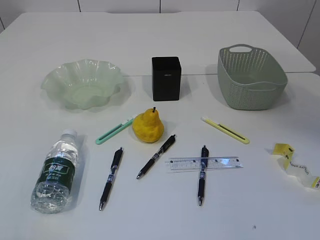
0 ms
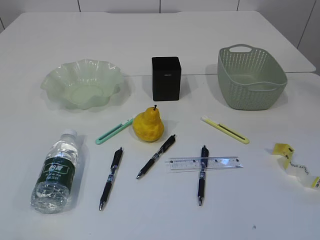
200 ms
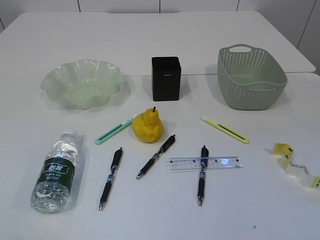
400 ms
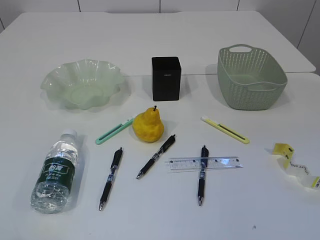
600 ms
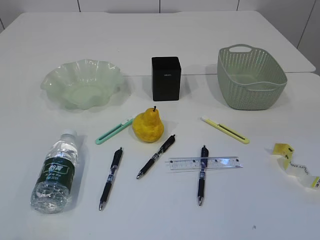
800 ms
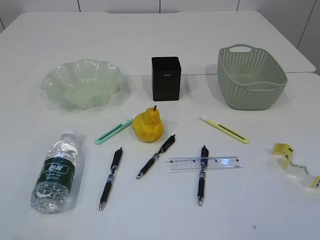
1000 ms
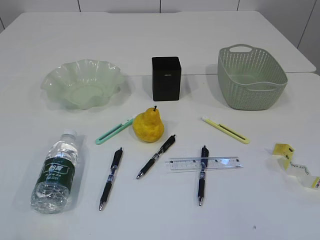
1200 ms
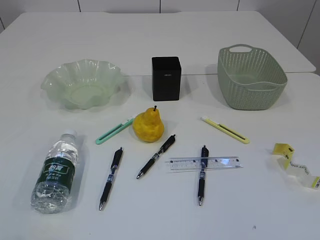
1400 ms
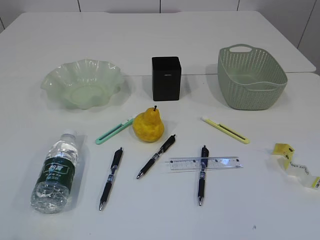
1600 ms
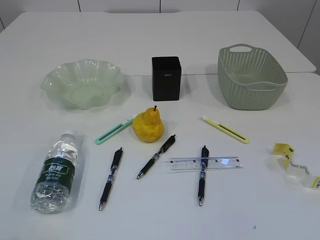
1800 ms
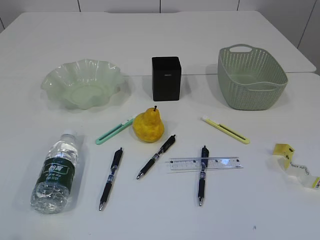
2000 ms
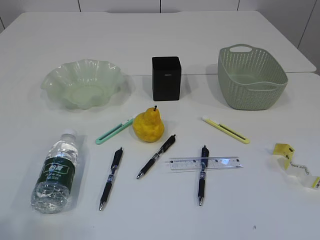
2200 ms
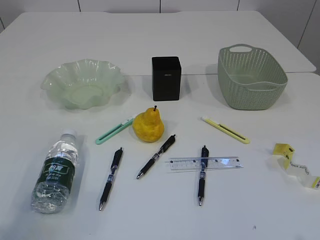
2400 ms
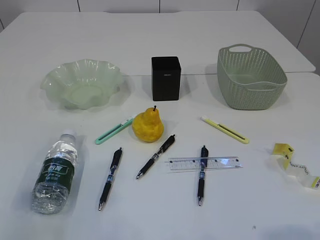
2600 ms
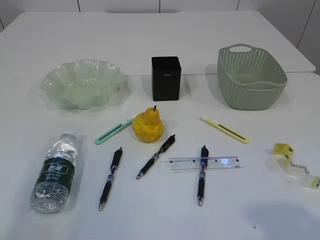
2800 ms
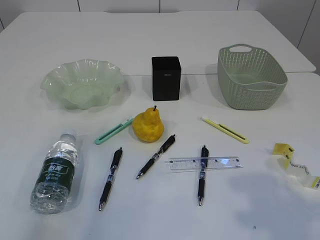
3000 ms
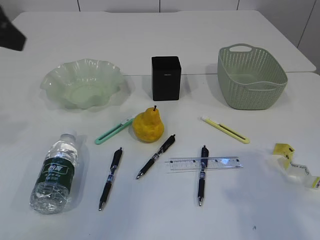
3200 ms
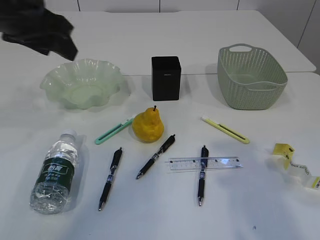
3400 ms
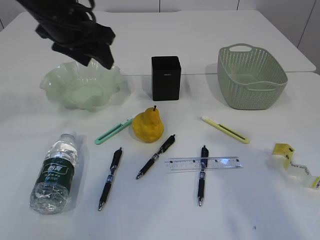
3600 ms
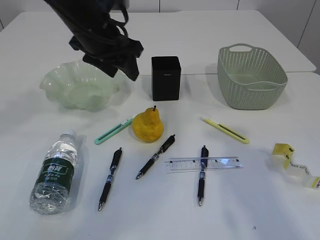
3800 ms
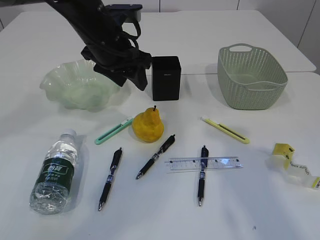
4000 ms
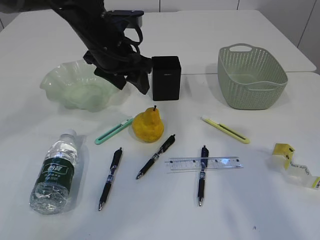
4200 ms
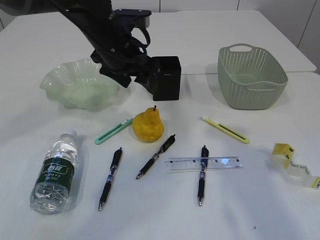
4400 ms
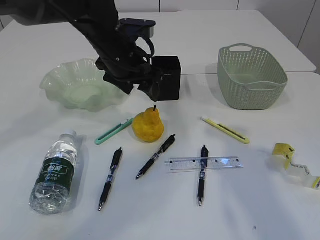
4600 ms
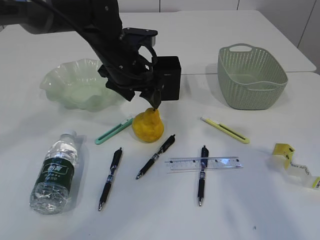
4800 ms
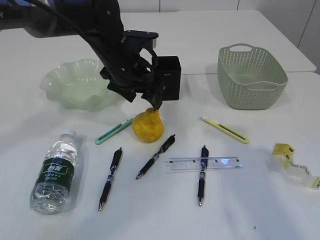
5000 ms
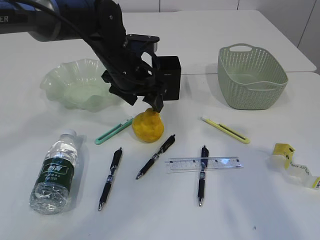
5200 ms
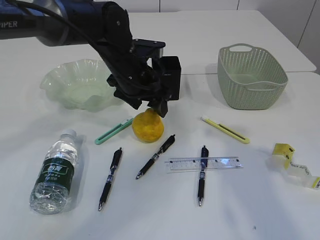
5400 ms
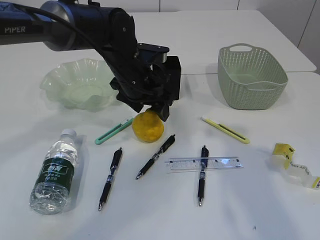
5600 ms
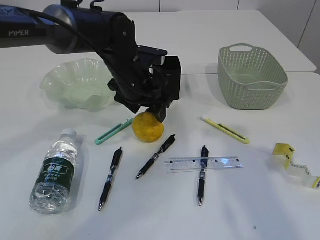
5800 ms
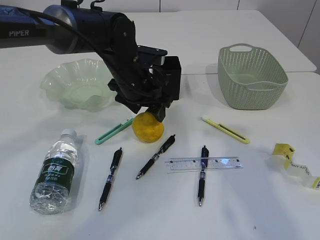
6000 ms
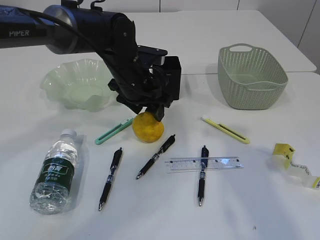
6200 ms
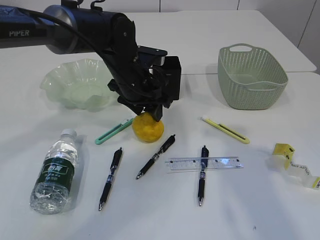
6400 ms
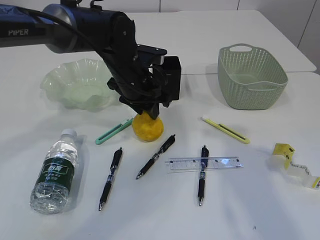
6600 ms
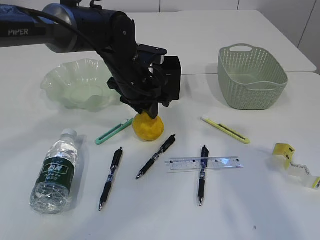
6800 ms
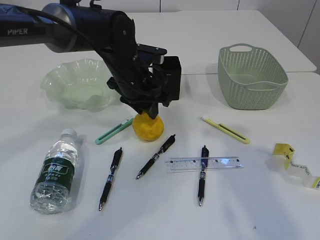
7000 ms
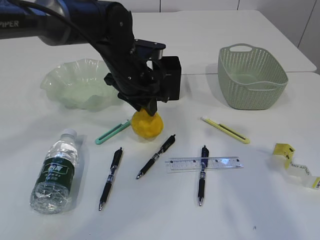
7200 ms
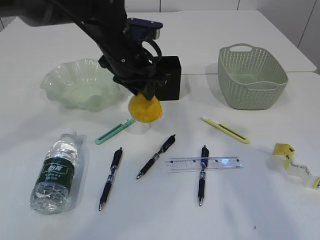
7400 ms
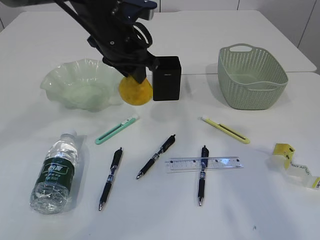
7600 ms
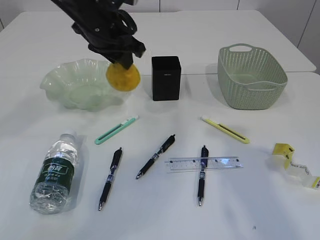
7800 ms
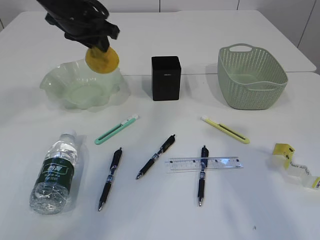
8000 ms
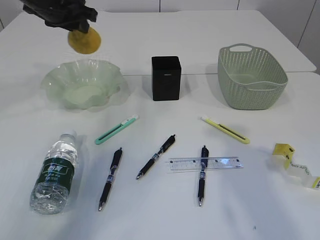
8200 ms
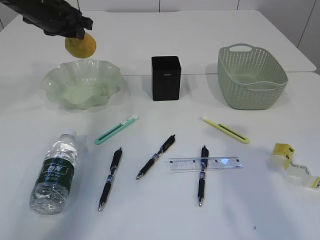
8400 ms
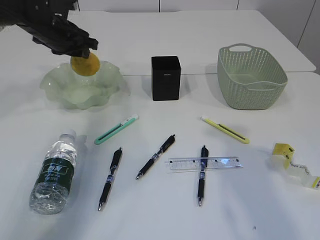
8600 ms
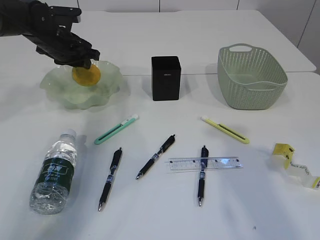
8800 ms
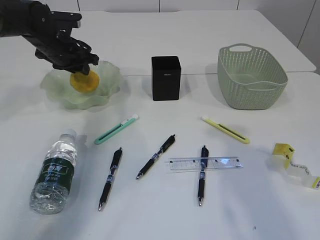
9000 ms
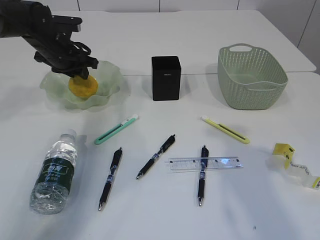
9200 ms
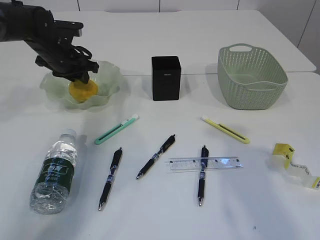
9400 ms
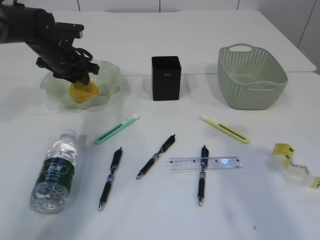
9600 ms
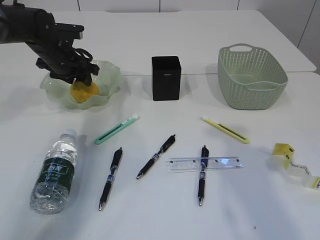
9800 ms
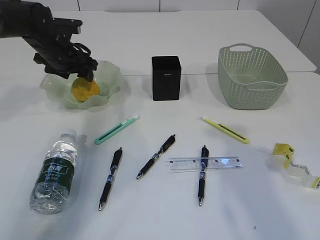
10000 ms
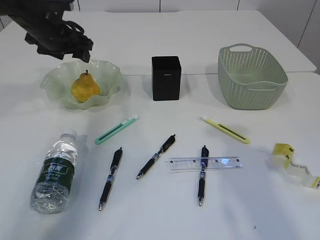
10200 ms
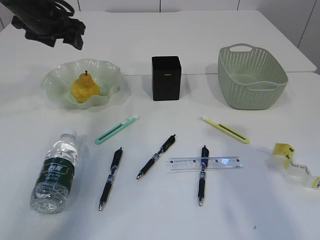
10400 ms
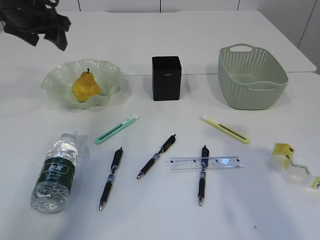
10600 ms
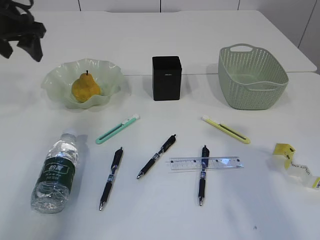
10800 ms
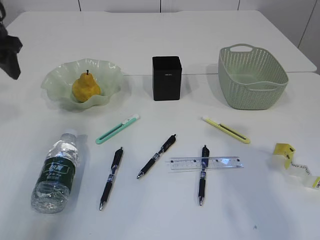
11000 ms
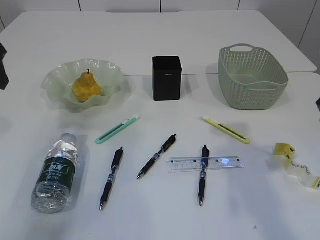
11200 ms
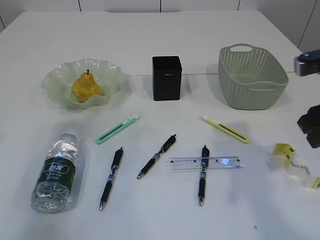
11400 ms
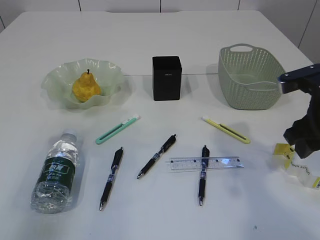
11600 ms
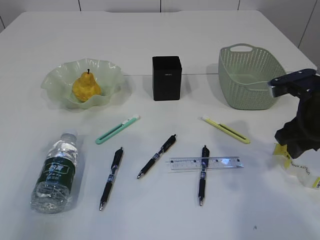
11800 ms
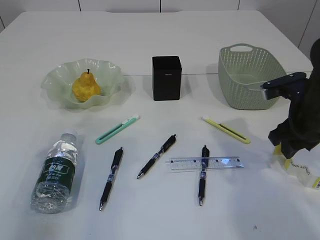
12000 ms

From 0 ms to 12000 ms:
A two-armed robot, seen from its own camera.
Step, from 7800 ms to 10400 ms: Place the pear in the plate.
From 1600 ms to 3000 ms: The right gripper goes about 10 cm forward. Meanwhile the left gripper travels forward and upward by roughly 20 cm.
From 3000 ms to 4400 ms: The right gripper shifts some 10 cm forward. The left gripper goes roughly 30 cm forward, to the right and downward.
From 4400 ms to 6000 ms: The left gripper moves downward, about 5 cm.
From 6000 ms to 7600 ms: The left gripper moves upward, about 10 cm, and closes its fingers.
From 7600 ms to 9000 ms: The left gripper moves to the left, forward and downward, some 20 cm.
From 9000 ms to 10400 ms: The left gripper travels upward by roughly 10 cm, and opens its fingers.
From 10400 ms to 12000 ms: The left gripper shifts roughly 25 cm backward, while the right gripper shifts some 20 cm downward and forward.

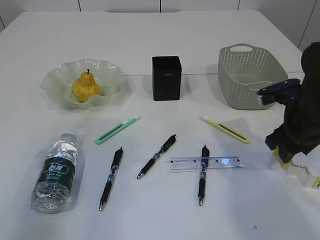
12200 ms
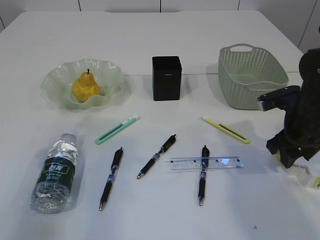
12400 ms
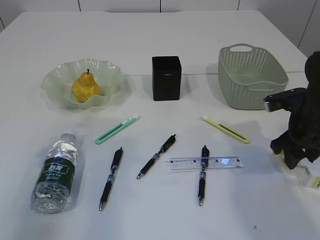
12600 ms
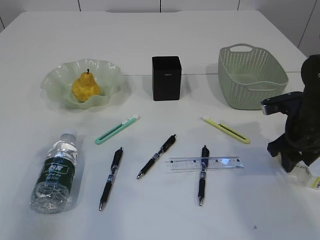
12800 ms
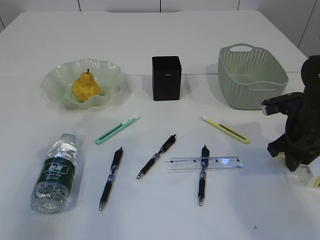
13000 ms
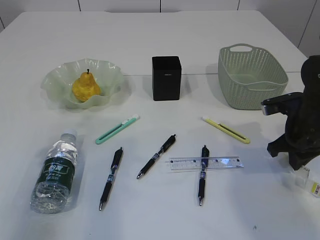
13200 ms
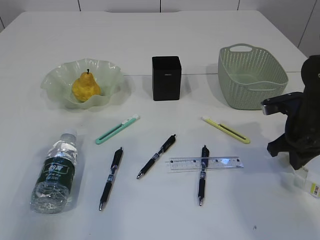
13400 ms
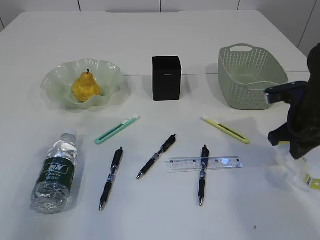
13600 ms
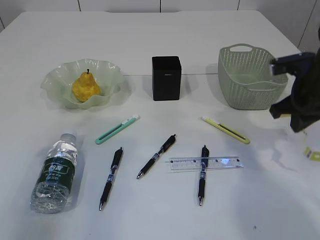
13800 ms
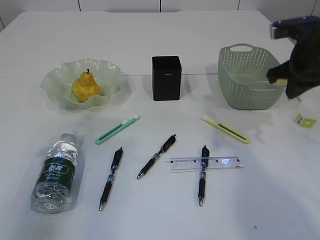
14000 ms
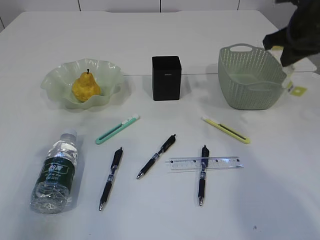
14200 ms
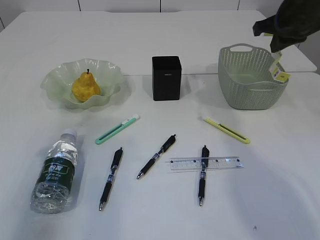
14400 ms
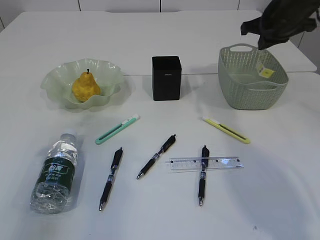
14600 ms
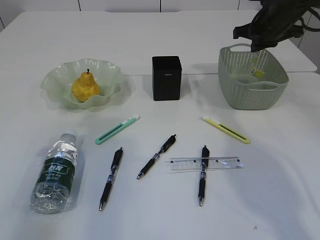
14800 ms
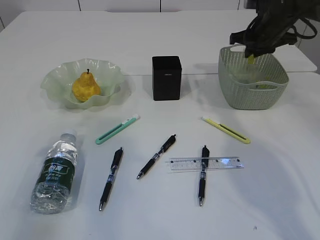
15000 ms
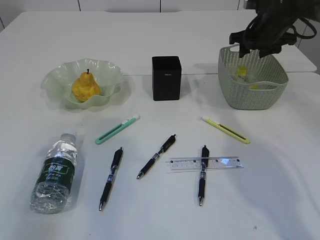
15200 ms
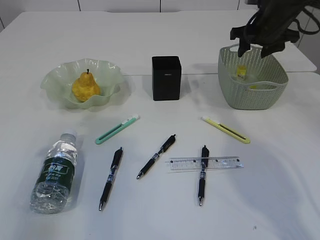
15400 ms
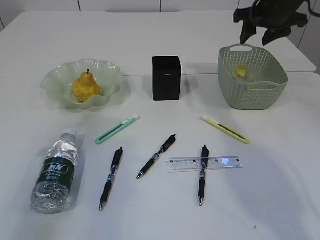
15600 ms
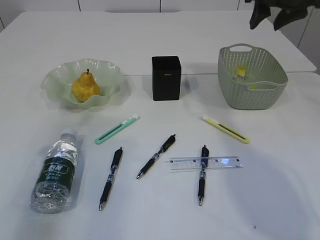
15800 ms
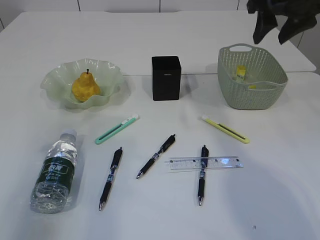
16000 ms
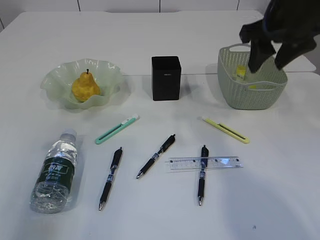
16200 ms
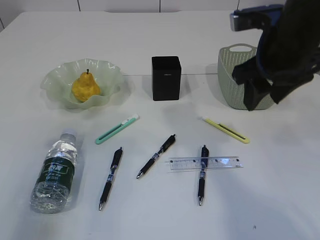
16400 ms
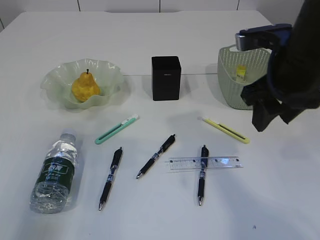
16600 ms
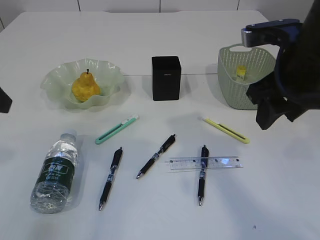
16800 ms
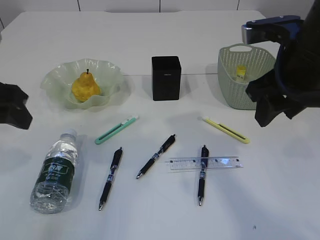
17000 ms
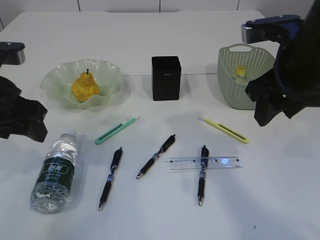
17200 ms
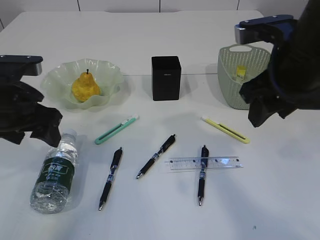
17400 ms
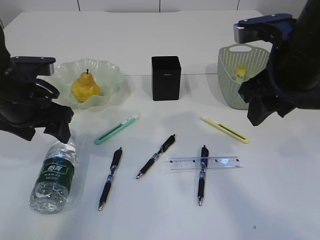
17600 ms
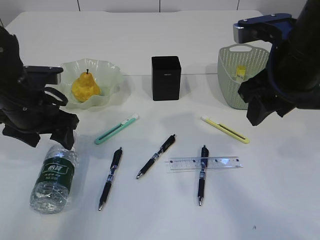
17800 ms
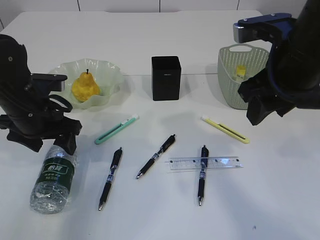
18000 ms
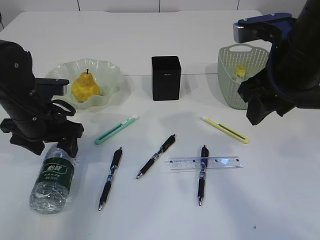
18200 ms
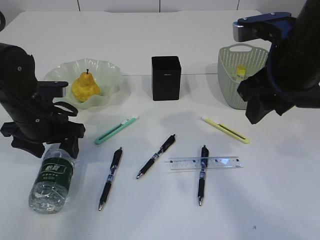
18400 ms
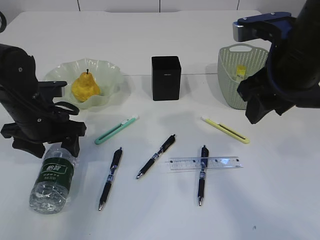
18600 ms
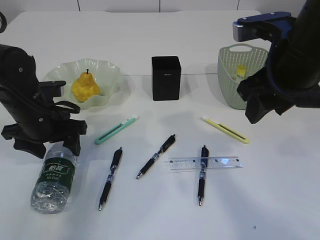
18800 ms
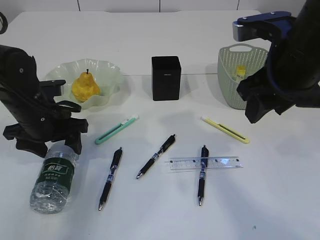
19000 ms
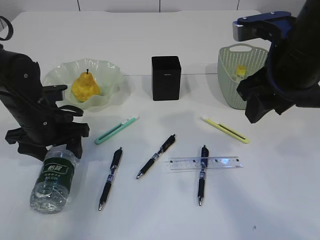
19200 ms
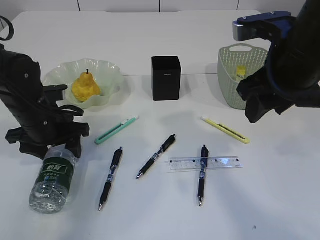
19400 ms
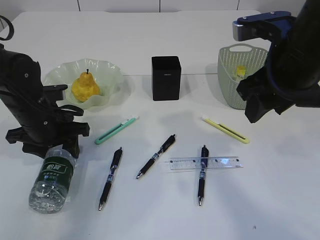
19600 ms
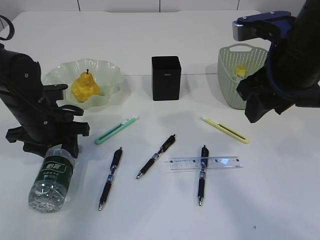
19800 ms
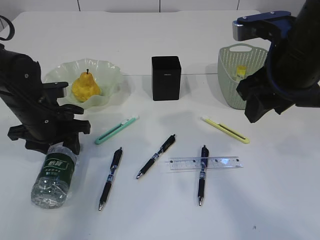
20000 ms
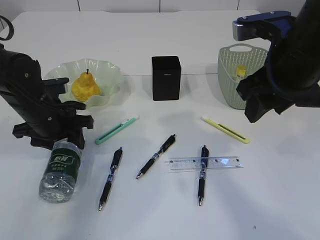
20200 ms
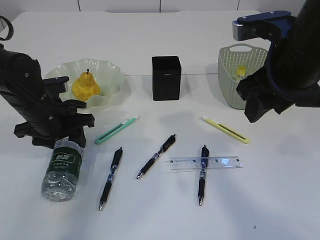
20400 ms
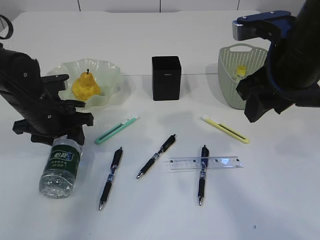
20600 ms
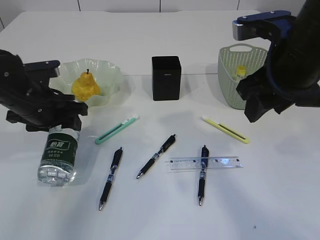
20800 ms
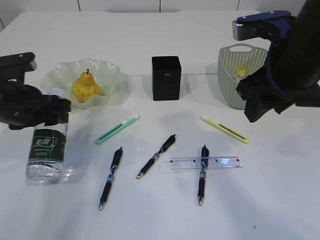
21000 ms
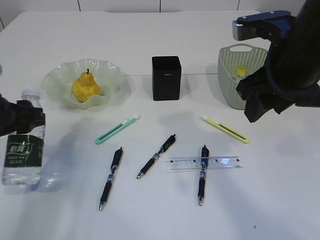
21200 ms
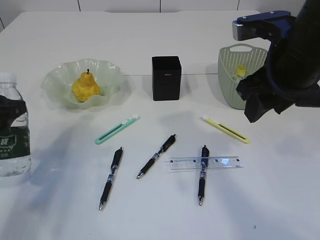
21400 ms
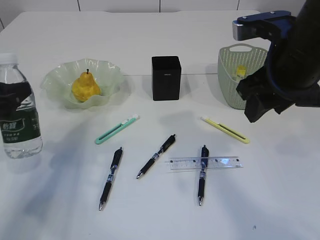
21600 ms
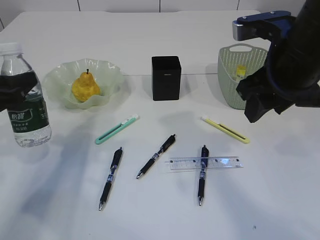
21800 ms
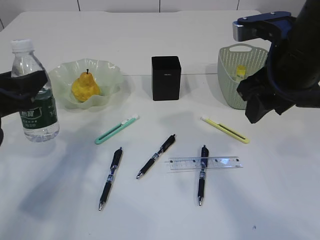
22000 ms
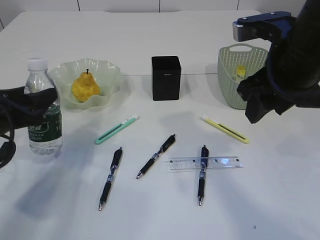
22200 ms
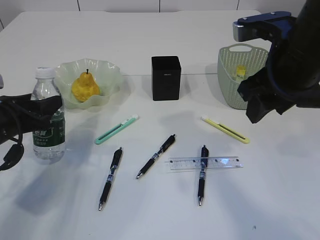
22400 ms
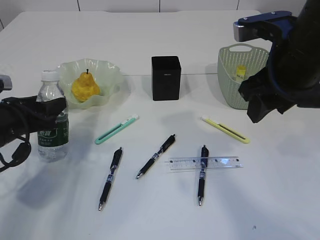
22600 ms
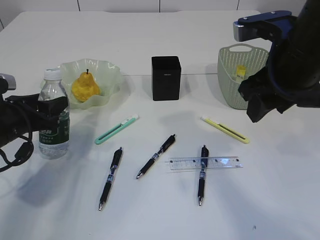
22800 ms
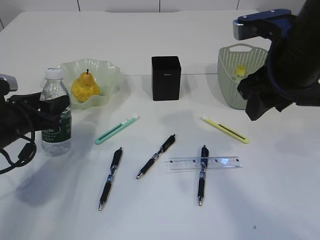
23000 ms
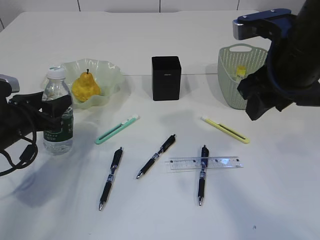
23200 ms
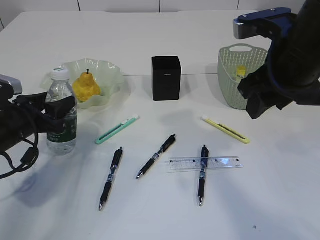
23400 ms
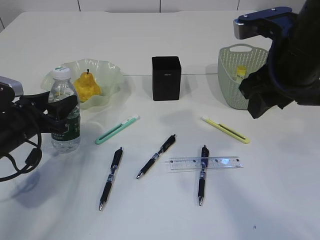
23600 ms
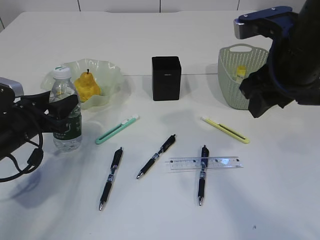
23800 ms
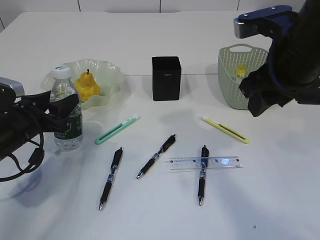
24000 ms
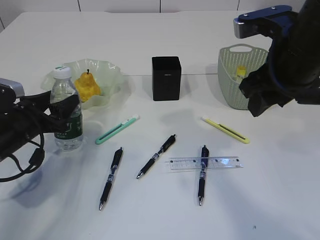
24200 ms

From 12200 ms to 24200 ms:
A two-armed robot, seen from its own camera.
Step, from 12200 ms to 14000 ms: Pick up the waste paper.
Step, from 14200 ms to 15800 ms: Place the waste paper in the basket.
Step, from 16000 ms to 21000 ms: Pick up the bottle with the left arm.
From 12200 ms to 13800 ms: The right gripper closes its fingers.
From 13800 ms to 15200 ms: The right gripper is displaced forward by roughly 15 cm, and opens its fingers.
From 15200 ms to 16600 ms: The right gripper travels backward by some 20 cm.
From 16600 ms to 18200 ms: The left gripper moves downward, forward and to the right, approximately 20 cm.
From 18200 ms to 19800 ms: The left gripper closes.
From 19800 ms to 21200 ms: The left gripper goes about 10 cm backward, to the left and upward.
From 21200 ms to 22600 ms: The left gripper travels downward by about 5 cm.
From 22600 ms to 24200 ms: There are only small adjustments of the grippers.
